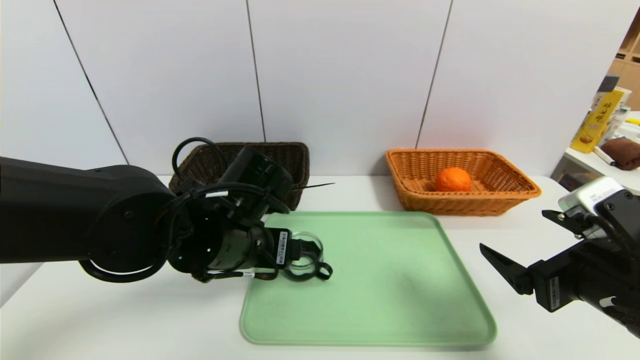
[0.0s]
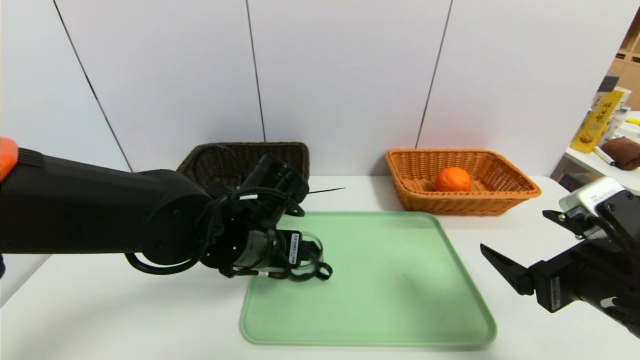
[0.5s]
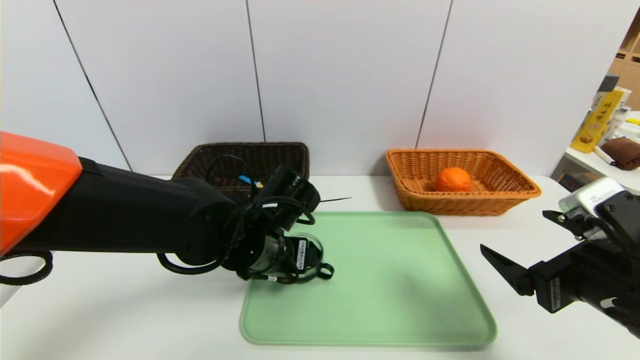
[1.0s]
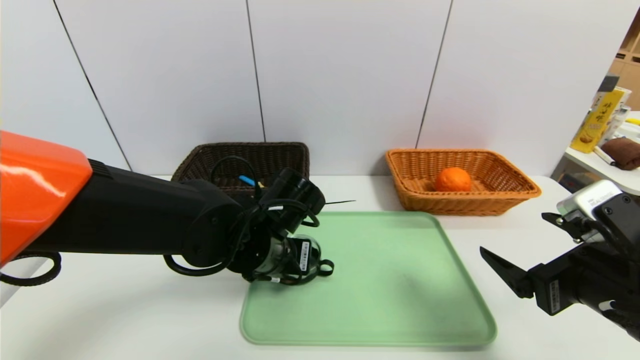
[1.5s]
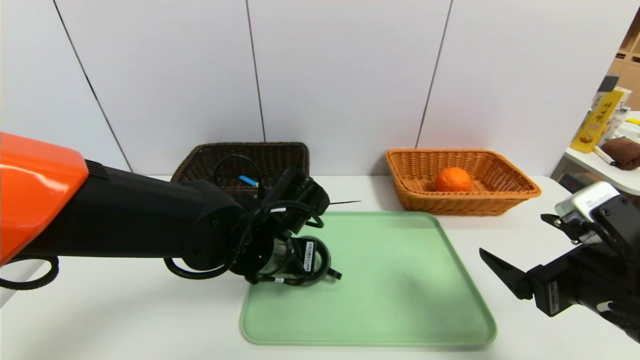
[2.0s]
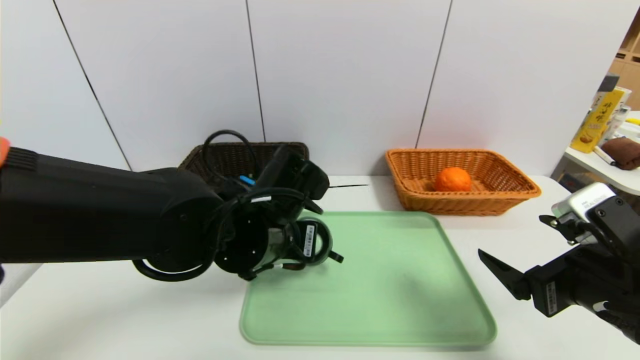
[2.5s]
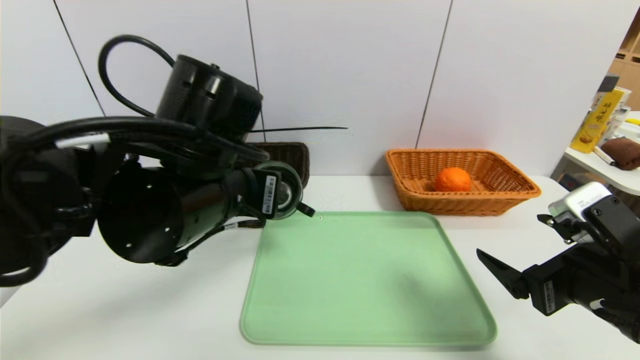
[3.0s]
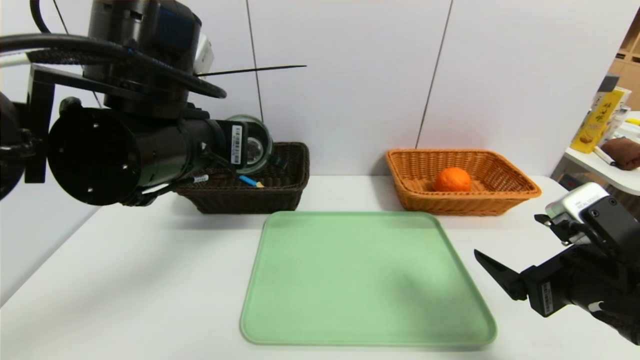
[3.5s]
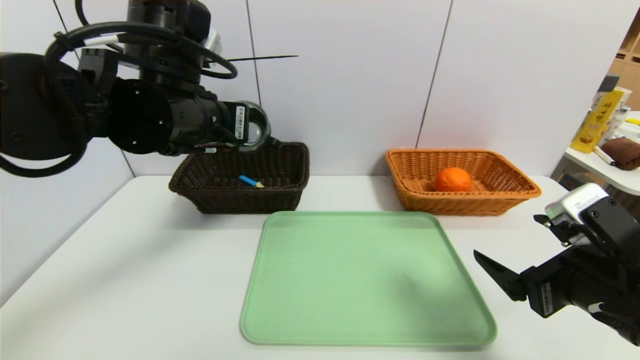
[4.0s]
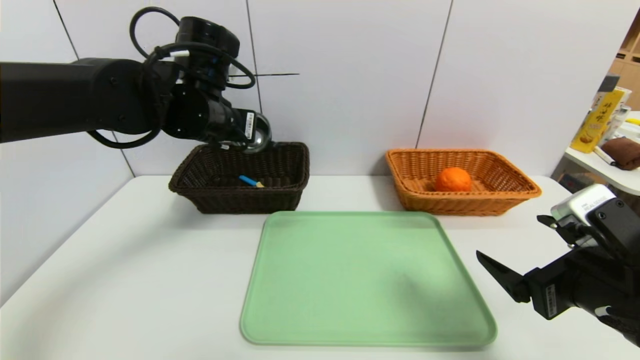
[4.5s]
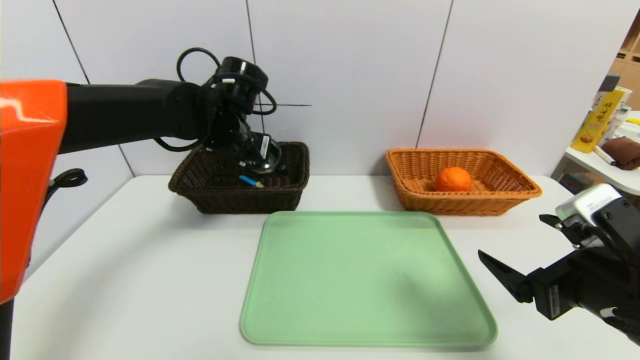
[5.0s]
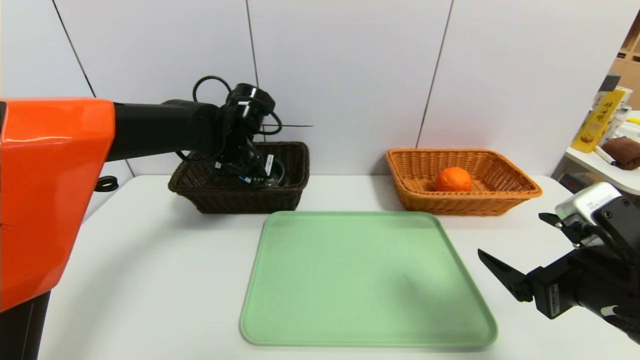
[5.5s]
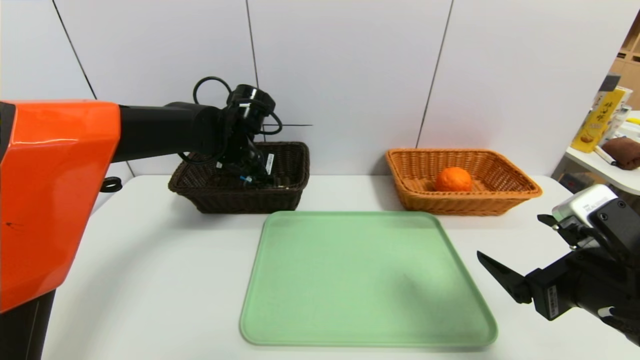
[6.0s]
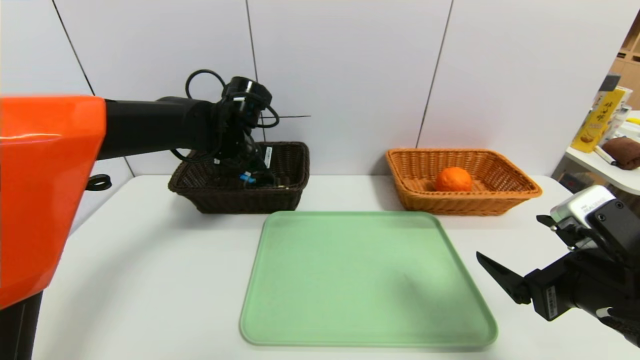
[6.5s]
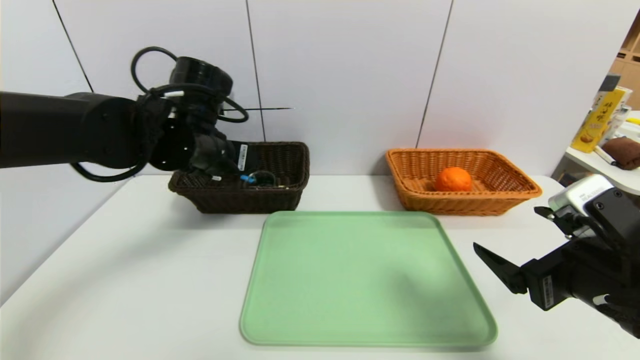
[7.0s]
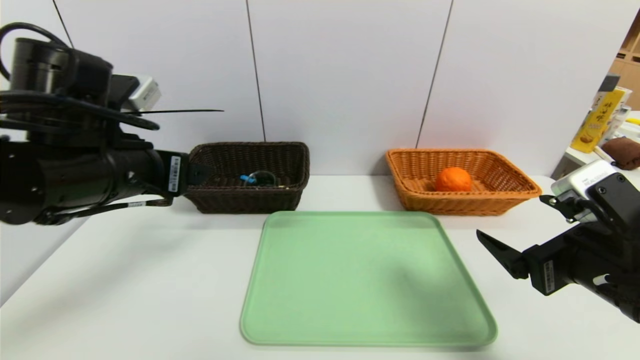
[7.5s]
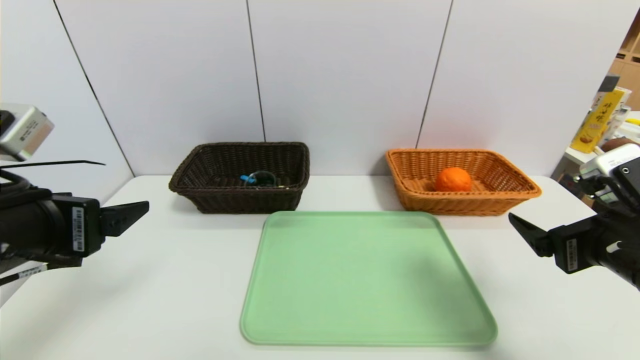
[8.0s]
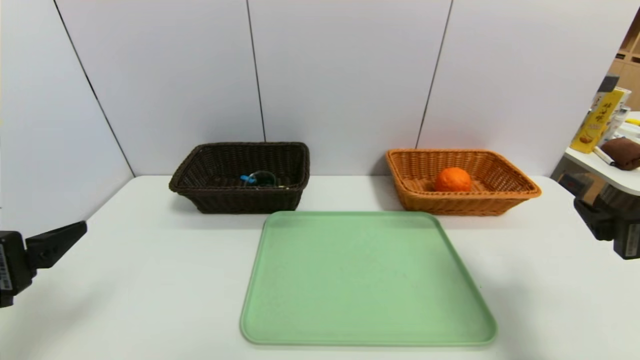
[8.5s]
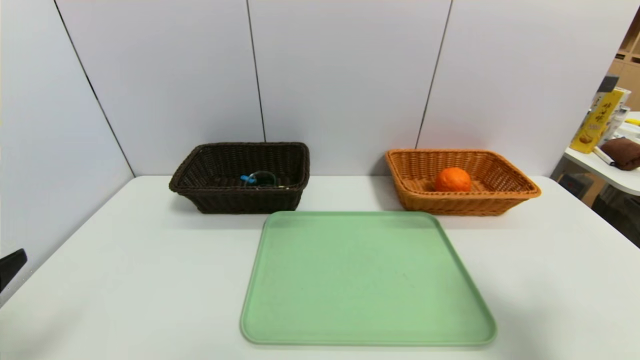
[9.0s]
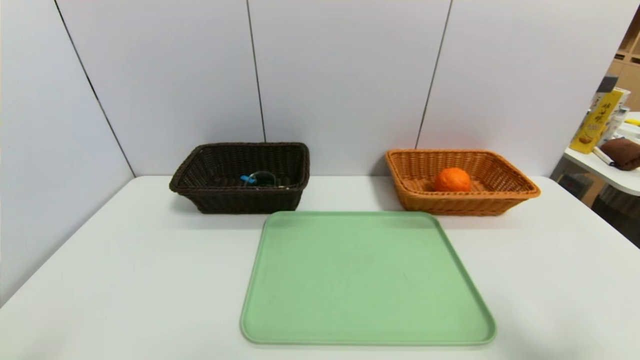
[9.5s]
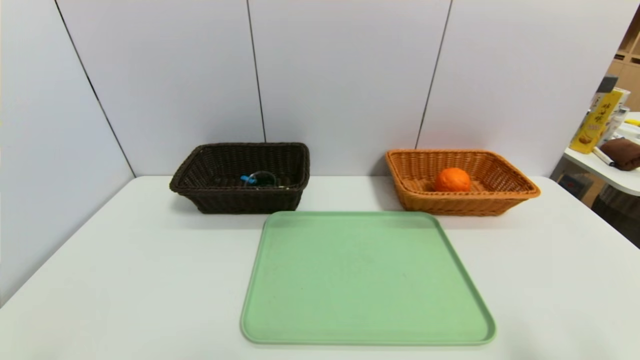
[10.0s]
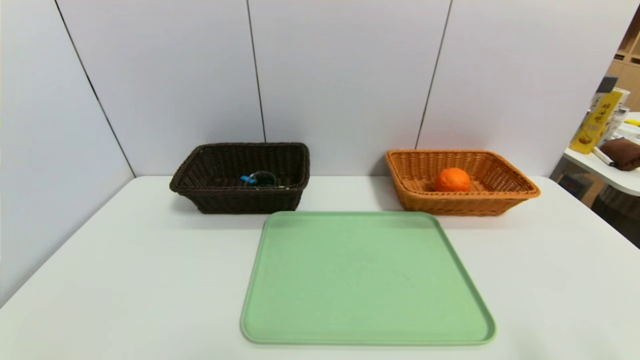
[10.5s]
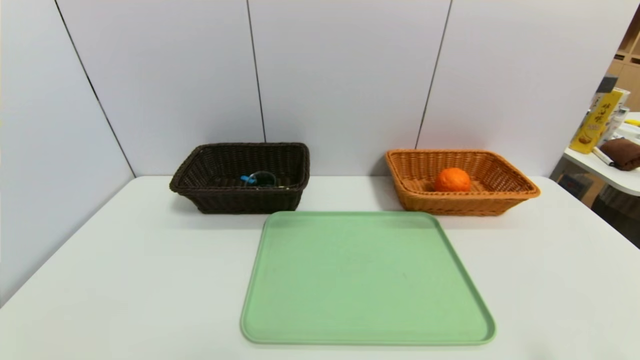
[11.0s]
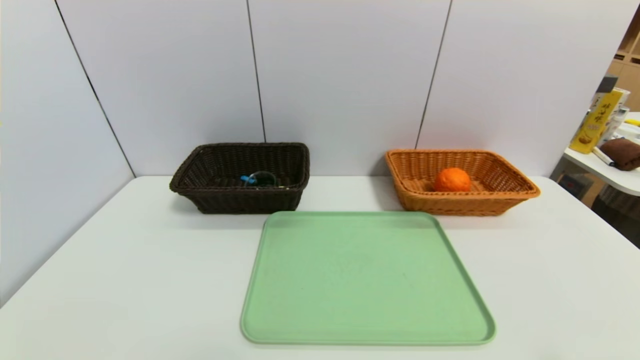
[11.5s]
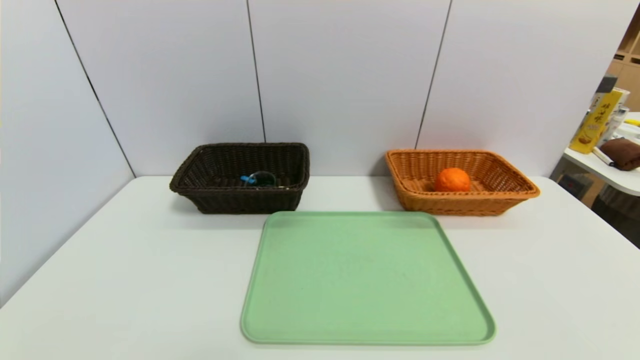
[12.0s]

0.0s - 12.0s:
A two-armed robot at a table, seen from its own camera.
Task of the whole recording: place the food in the right basket with the right gripper, and place the non food items in the left basket with the left gripper.
Step, 0.0s - 6.5s: Grasp the tea cup and put it in the left basket.
0.0s - 2.0s: The left gripper ends up approximately 5 cm from where it was, and closes up.
2.0s - 4.0s: The left gripper travels upward and to the left by roughly 20 cm.
4.0s - 6.0s: The left gripper heads forward and downward, covering approximately 15 cm, and opens its fingers.
6.0s - 8.0s: The left gripper moves backward and to the left, about 30 cm, and opens its fingers.
8.0s - 10.0s: The right gripper travels backward and to the right by approximately 15 cm; the left gripper moves backward and downward, about 15 cm.

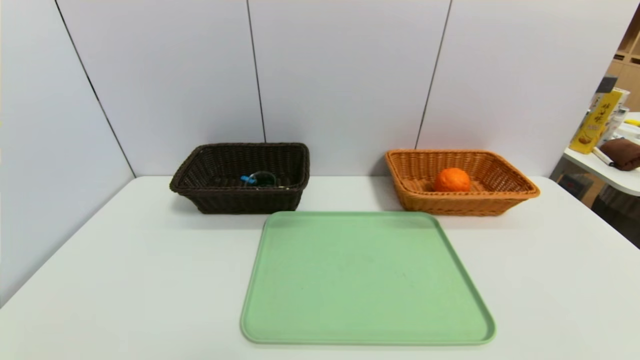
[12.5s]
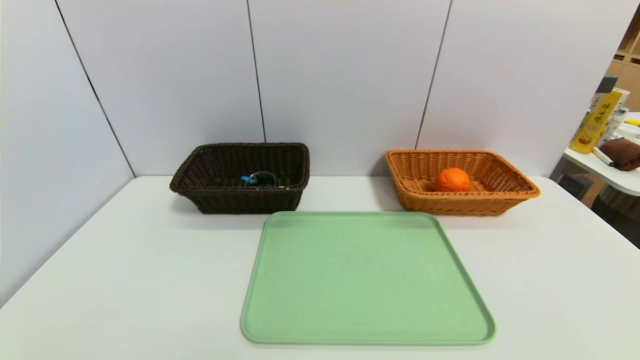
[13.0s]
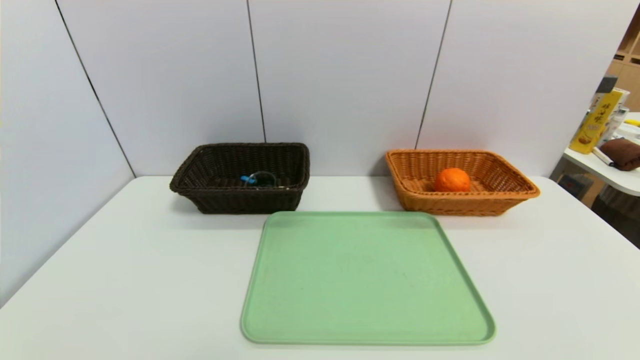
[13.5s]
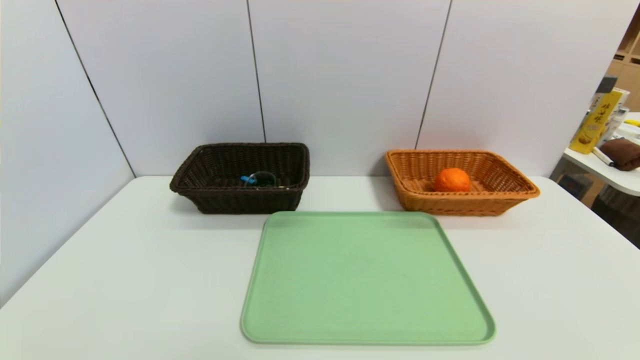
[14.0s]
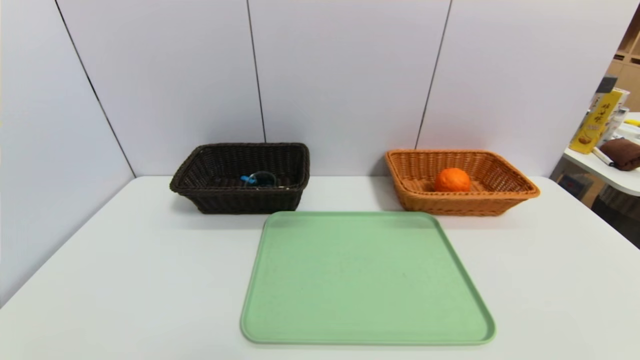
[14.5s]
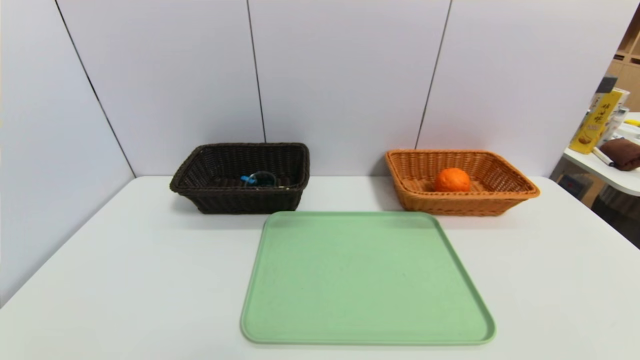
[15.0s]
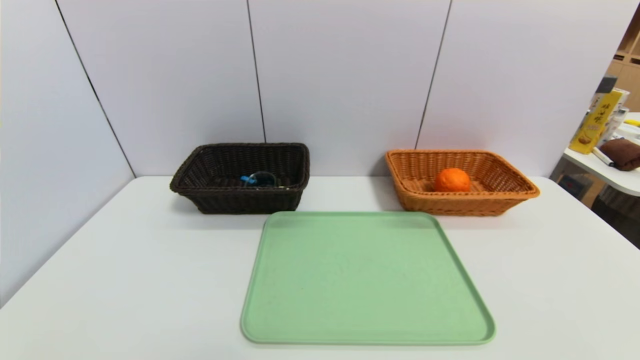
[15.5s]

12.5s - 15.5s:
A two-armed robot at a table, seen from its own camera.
Task of the whole recording: place the food in the right basket with the right gripper, and place the non food items in the left basket with the left gripper.
14.0s - 15.5s: Both grippers stay about where they are.

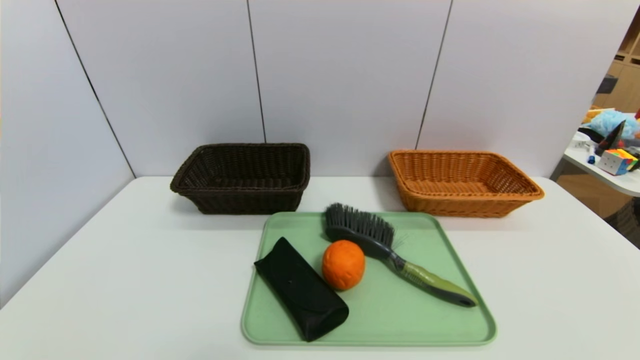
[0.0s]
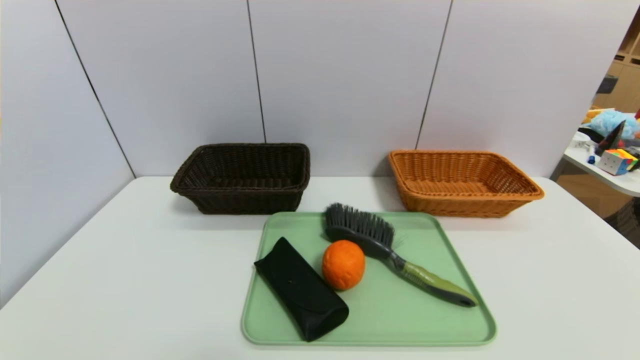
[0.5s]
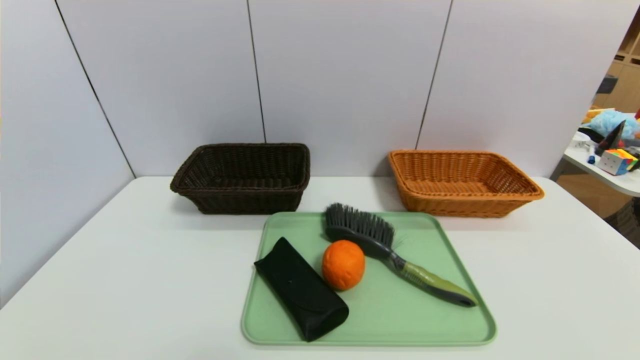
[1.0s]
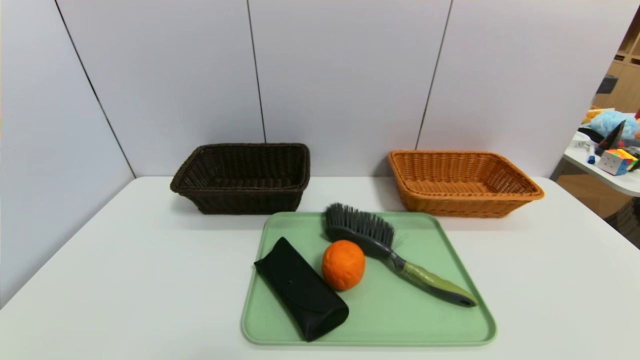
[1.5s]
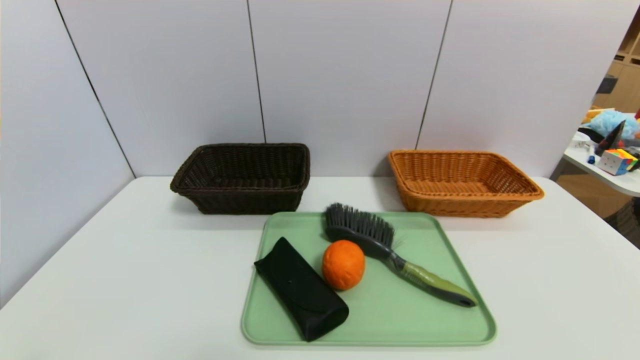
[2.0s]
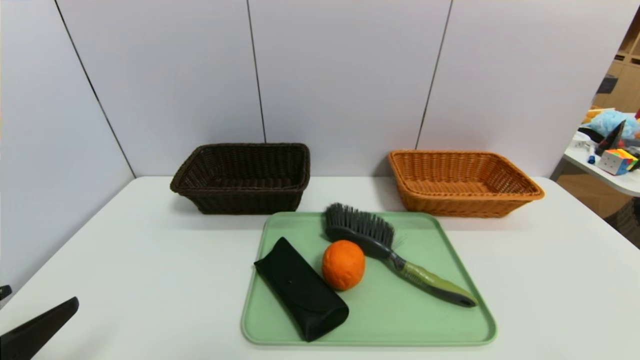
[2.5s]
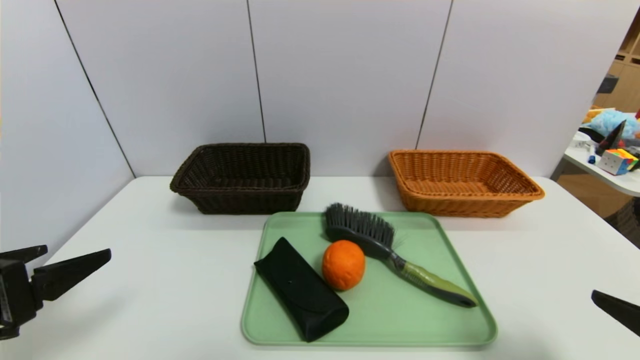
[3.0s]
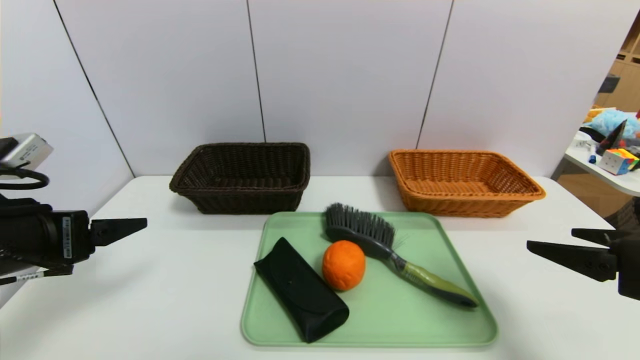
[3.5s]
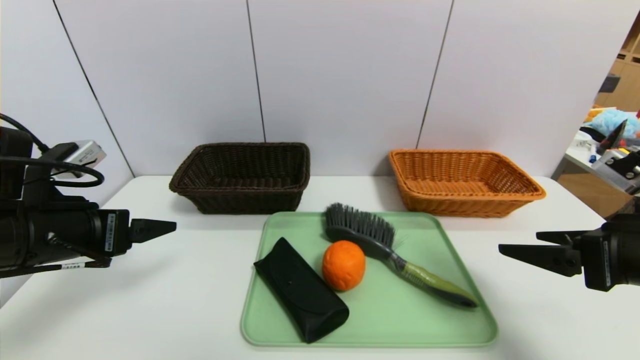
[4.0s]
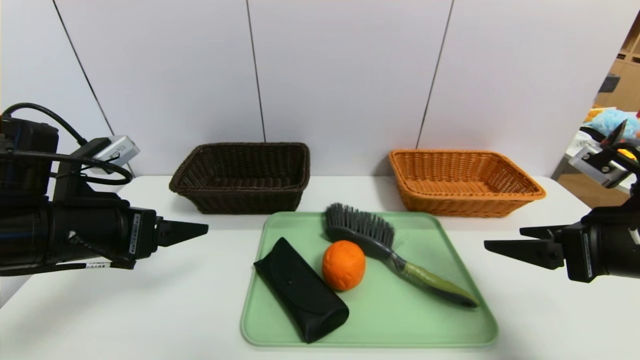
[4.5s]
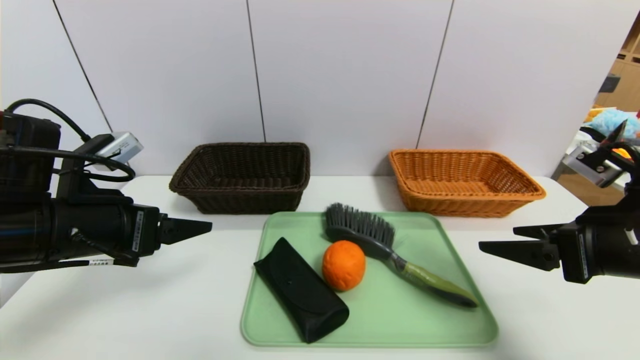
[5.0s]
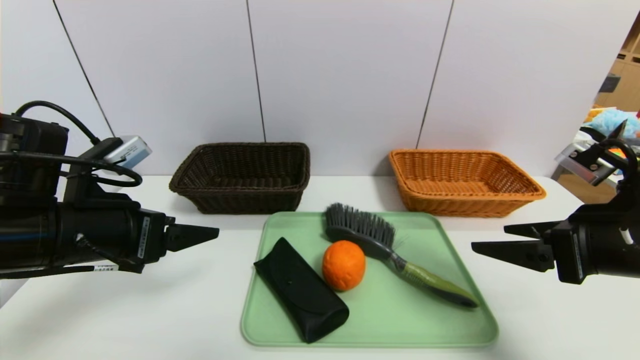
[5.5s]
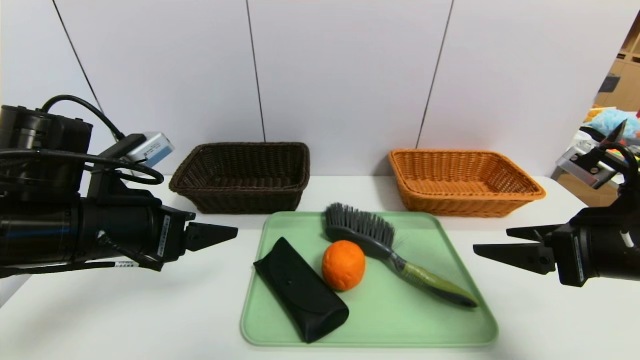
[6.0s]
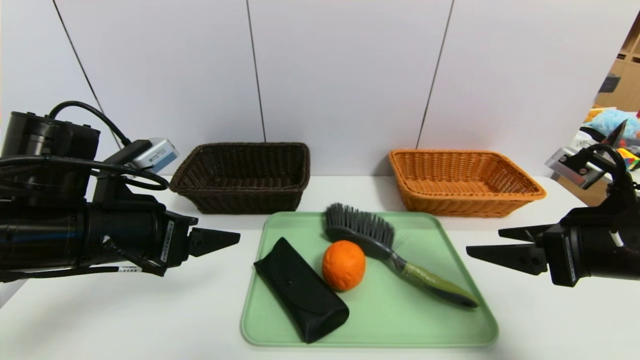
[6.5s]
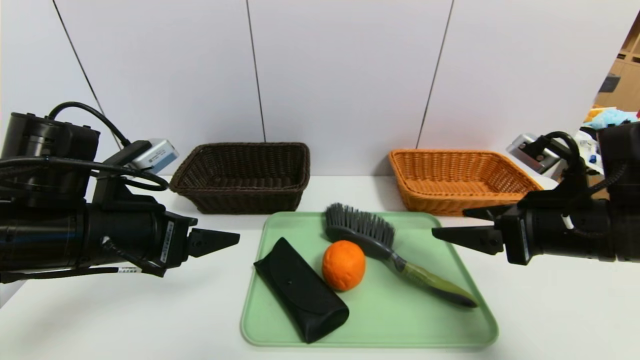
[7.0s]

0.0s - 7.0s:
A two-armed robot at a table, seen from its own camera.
Task of the whole recording: place the food in the right basket with the right gripper, and place the non food items in the left basket with the left gripper.
2.0s - 3.5s: Both grippers travel together forward and upward, roughly 20 cm.
3.5s - 5.0s: The left gripper moves some 5 cm.
5.0s - 7.0s: The right gripper shifts by some 5 cm.
